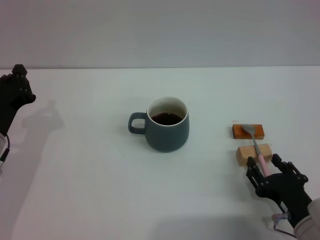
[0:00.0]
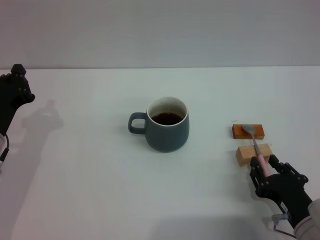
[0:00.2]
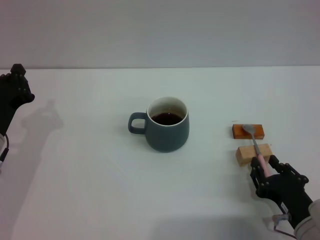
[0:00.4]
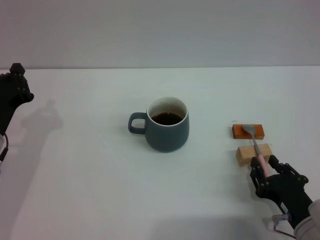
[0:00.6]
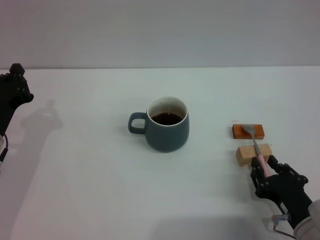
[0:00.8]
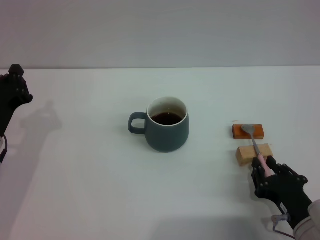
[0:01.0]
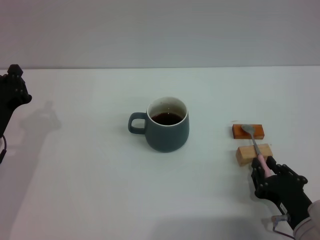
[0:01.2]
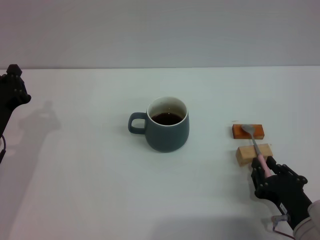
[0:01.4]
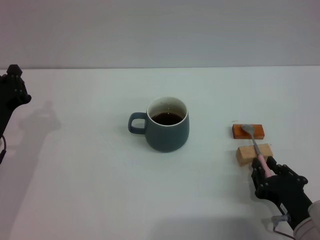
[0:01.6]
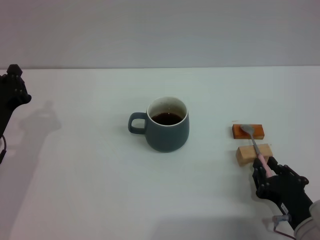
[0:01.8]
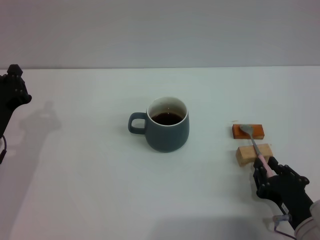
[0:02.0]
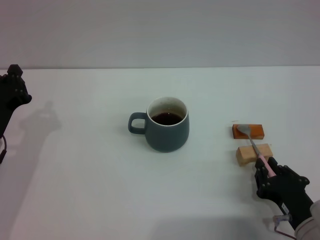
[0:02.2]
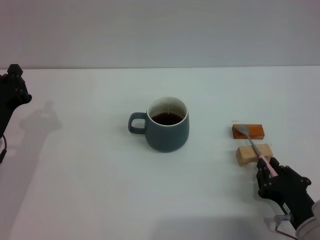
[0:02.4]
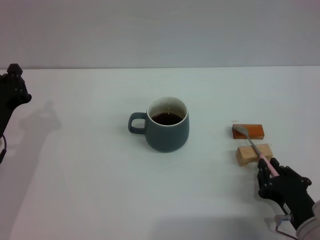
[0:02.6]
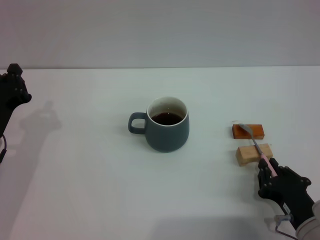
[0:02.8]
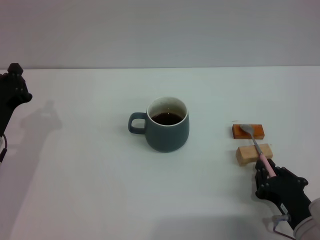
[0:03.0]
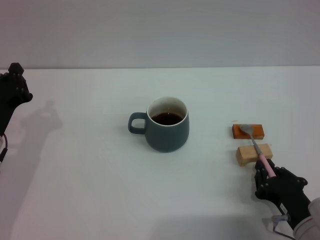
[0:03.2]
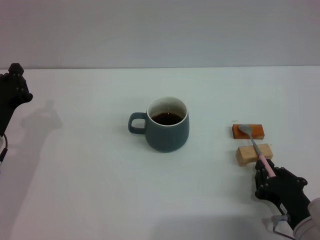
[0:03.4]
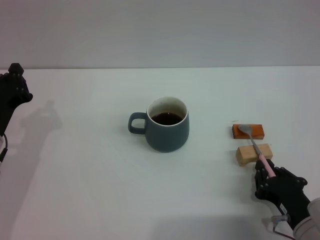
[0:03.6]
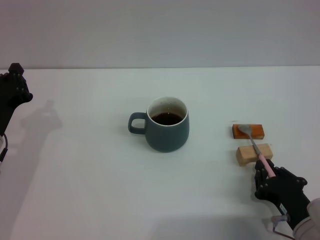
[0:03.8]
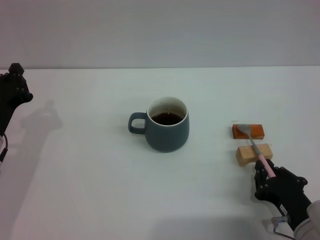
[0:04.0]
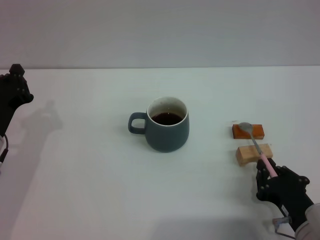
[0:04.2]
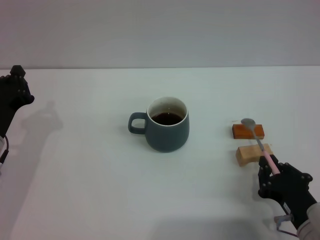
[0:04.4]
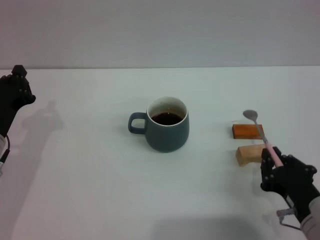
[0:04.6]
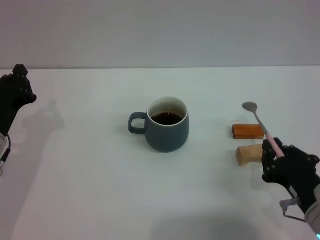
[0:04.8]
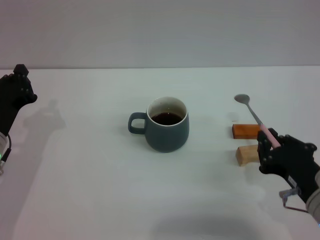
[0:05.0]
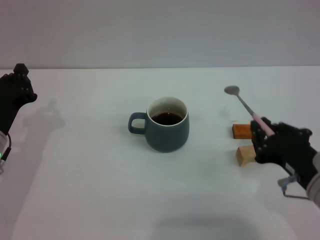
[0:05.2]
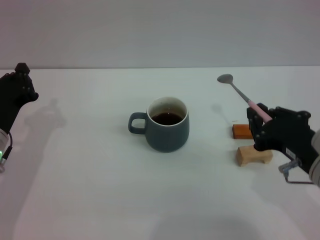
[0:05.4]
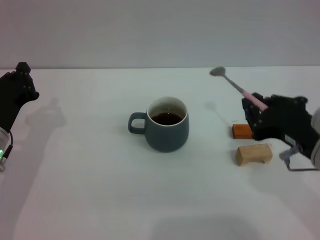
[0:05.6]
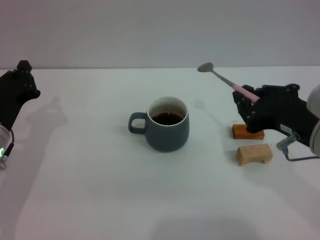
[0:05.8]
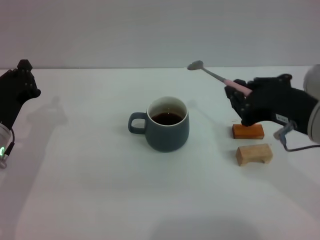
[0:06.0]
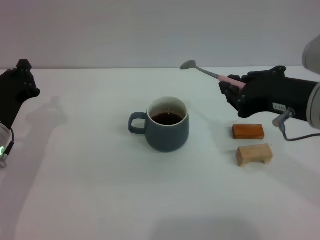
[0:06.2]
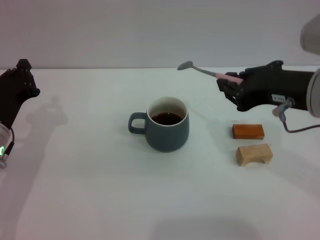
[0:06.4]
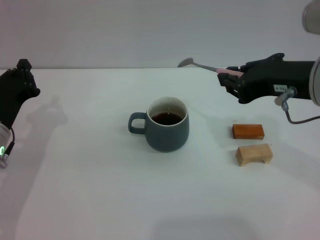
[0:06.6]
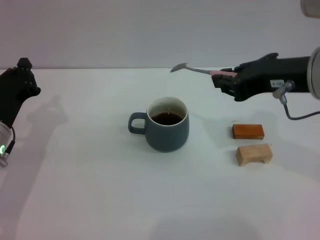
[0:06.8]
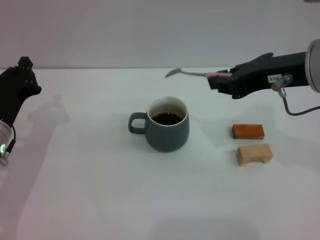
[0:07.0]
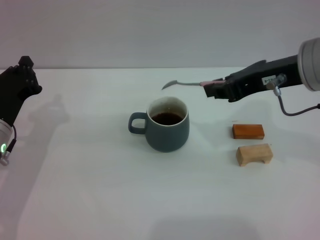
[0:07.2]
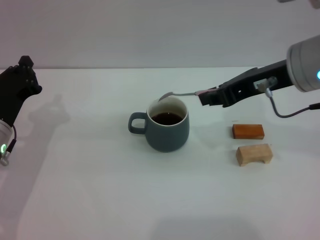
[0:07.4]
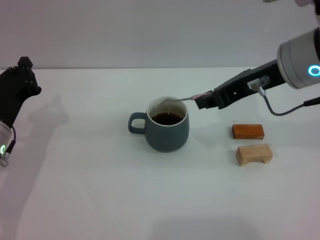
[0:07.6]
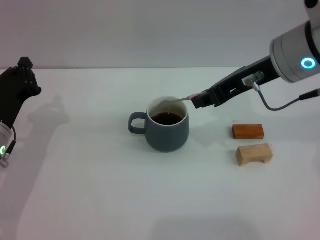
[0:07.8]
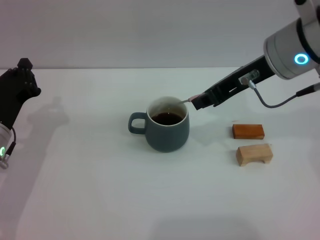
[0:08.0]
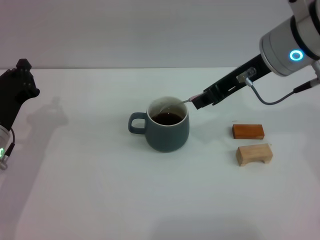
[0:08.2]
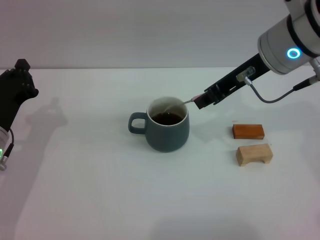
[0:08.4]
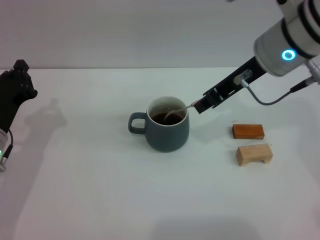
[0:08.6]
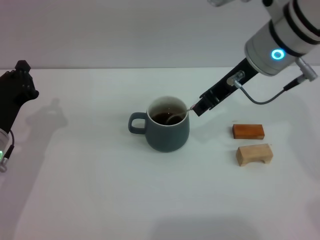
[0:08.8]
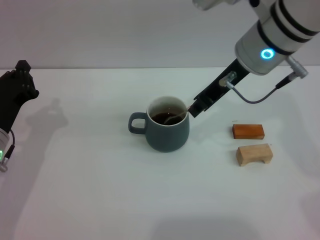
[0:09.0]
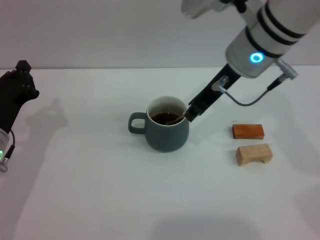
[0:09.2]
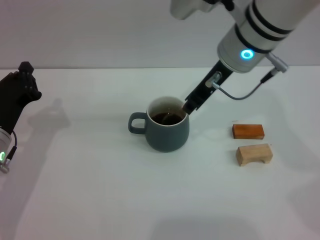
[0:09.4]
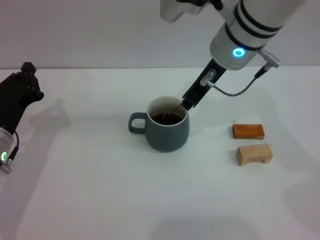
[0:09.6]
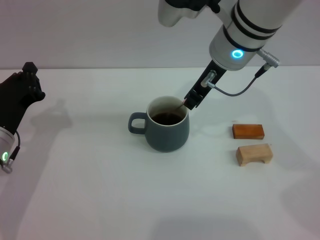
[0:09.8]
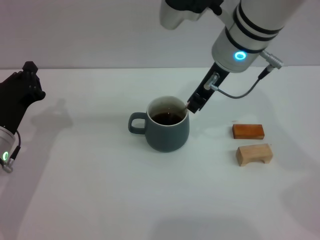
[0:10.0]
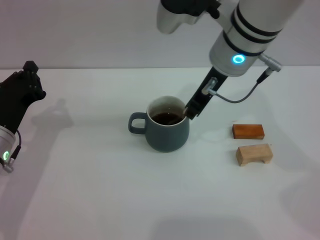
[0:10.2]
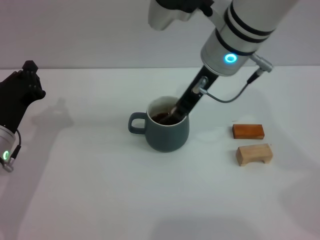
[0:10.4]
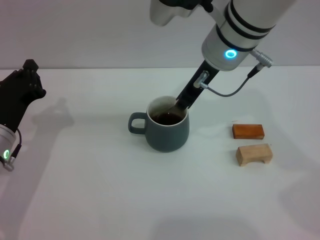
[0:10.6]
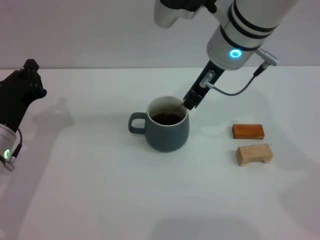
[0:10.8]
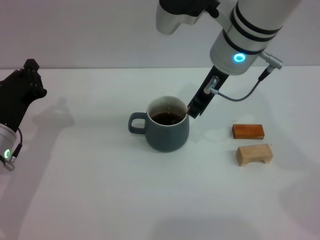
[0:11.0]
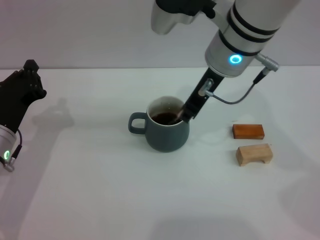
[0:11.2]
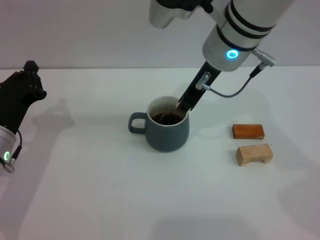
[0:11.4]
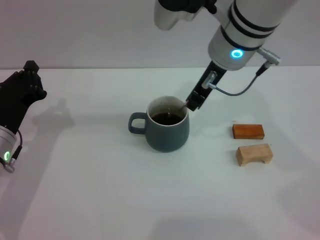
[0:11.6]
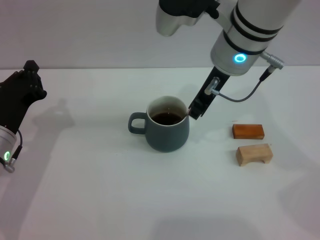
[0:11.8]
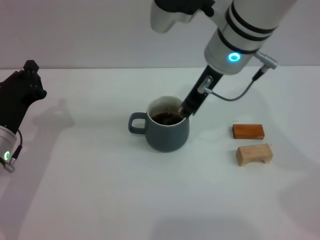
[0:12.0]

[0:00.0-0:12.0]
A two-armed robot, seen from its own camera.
Task of the whole recording: Move the grey cup to the center, lift the pink spoon, stir it three times in the cup, and put the spoon into the cup.
Step, 0:00.0 to 0:05.4: Pick up the spoon with the right gripper.
0:00.0 to 0:01.6: The right gripper closes.
0:01.6 to 0:03.0: The two grippers keep their place.
0:03.0 to 0:04.4: The grippers stay close to where they were, moving slightly.
0:04.4 to 0:06.0: The right gripper heads upward, covering about 20 cm.
0:06.0 to 0:07.6: The right gripper heads forward, covering about 10 cm.
0:07.6 to 0:09.0: The right gripper ends up some 5 cm from where it was.
0:09.0 to 0:12.0: There are only small adjustments of the grippers.

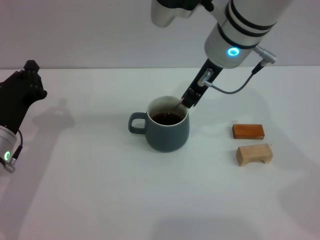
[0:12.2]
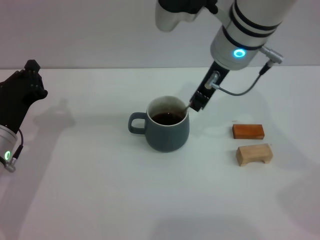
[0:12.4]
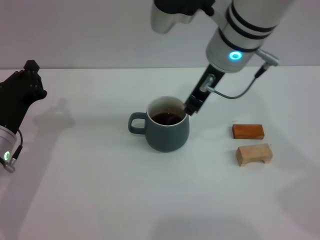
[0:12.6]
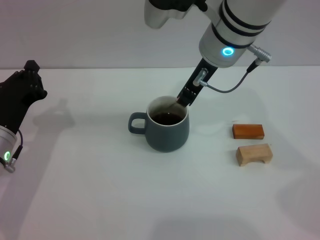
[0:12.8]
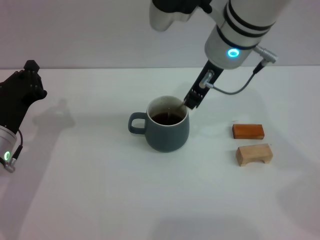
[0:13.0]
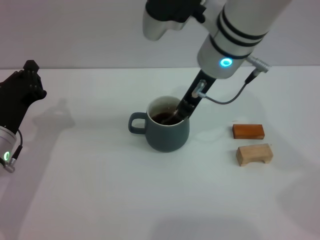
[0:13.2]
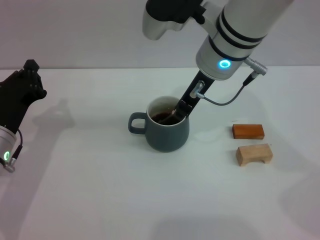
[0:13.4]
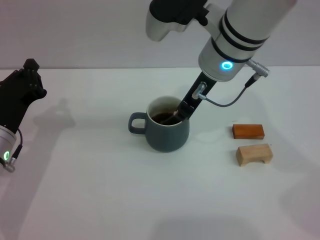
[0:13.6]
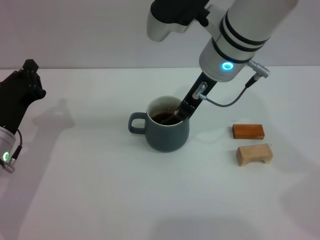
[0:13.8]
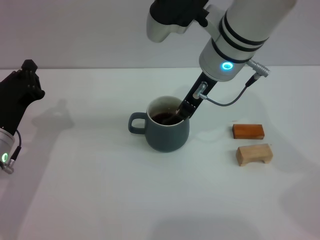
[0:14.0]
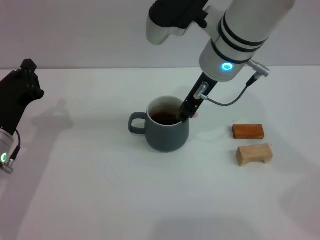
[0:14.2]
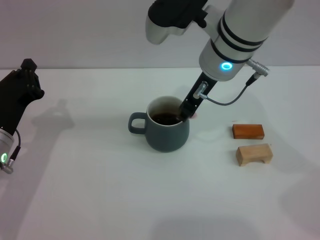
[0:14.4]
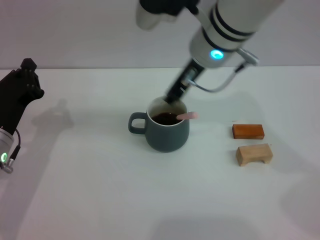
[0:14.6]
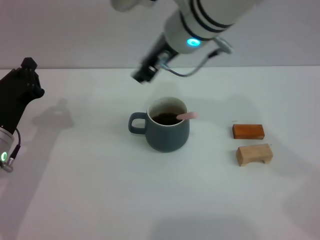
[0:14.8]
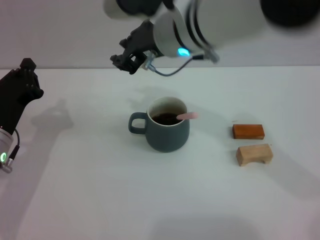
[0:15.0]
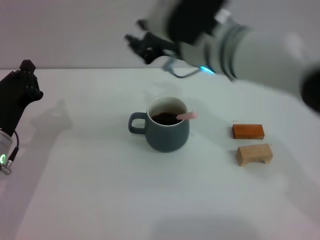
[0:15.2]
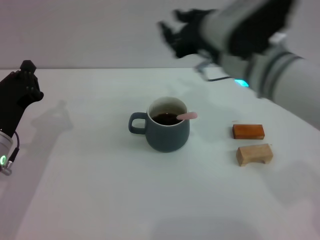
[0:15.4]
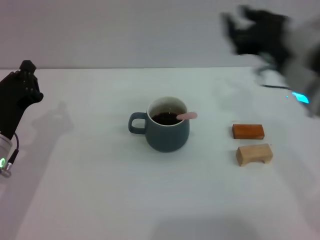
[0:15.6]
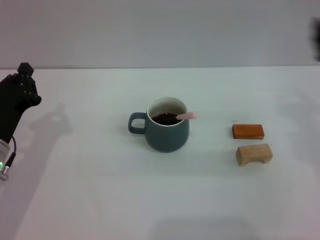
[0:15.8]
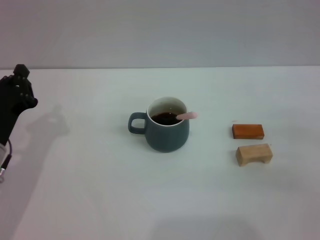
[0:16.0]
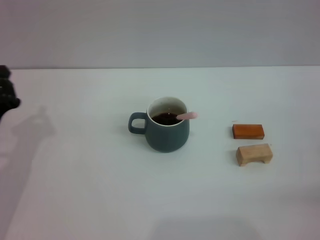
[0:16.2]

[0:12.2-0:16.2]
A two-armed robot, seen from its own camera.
Task of the whole recording: Move the grey cup to the center, lift the pink spoon, stir it three times in the cup, and put the spoon into the cup.
Step, 0:12.2 to 0:15.2: Stir the coffee in the cup with the right gripper.
0:12.2 to 0:13.6: There are only small adjustments of the grippers.
0:13.6 to 0:14.8: The right gripper ends up roughly 5 cm from where it was, and opens up.
0:14.8 to 0:16.2: The right gripper moves to the right, backward and downward, some 40 cm.

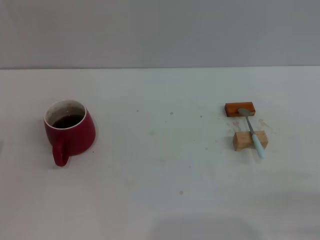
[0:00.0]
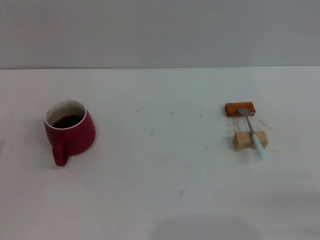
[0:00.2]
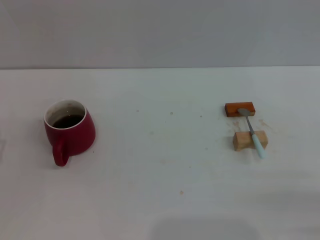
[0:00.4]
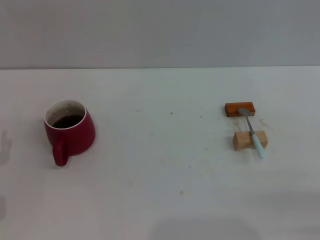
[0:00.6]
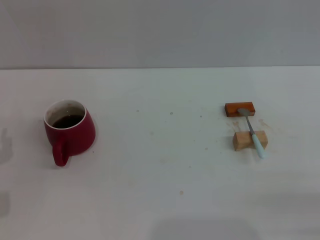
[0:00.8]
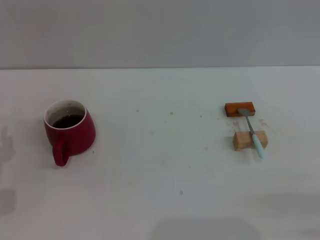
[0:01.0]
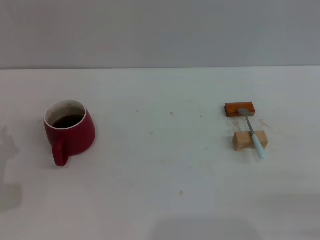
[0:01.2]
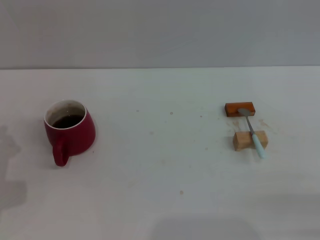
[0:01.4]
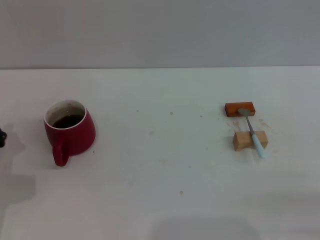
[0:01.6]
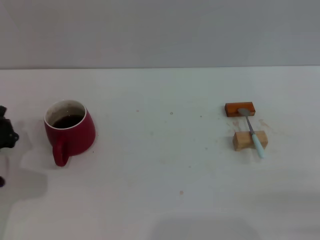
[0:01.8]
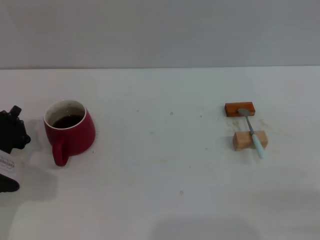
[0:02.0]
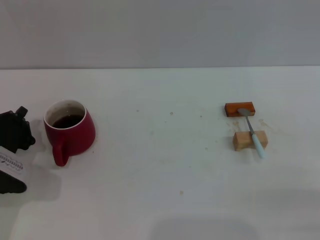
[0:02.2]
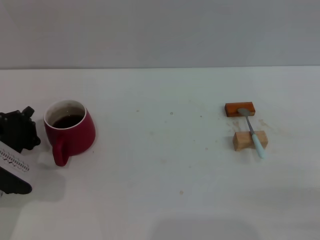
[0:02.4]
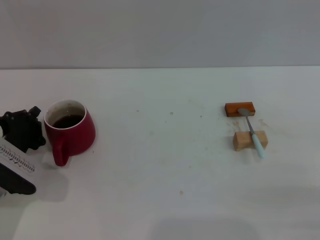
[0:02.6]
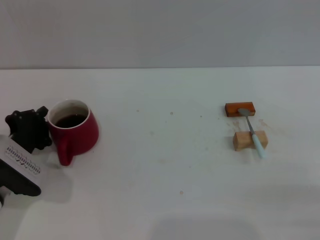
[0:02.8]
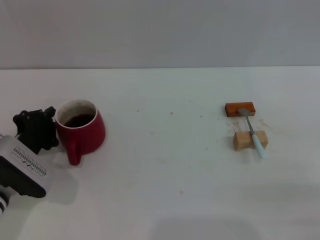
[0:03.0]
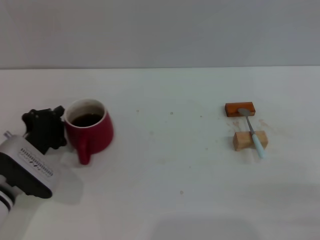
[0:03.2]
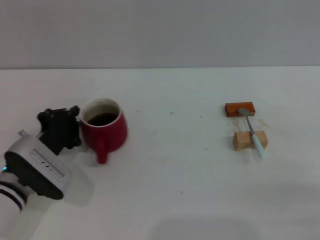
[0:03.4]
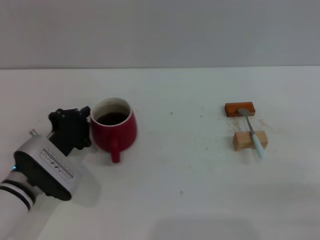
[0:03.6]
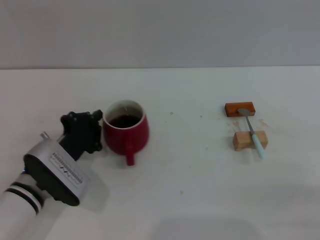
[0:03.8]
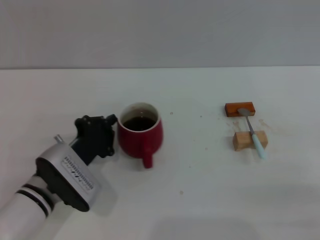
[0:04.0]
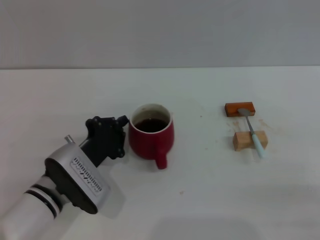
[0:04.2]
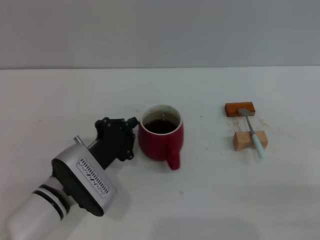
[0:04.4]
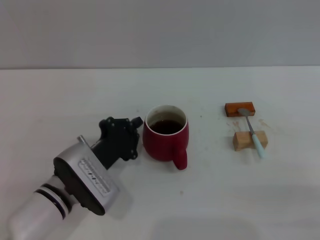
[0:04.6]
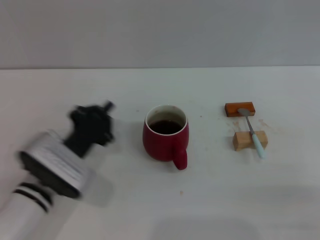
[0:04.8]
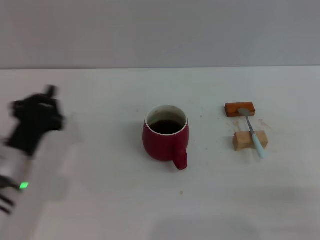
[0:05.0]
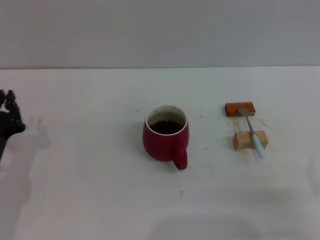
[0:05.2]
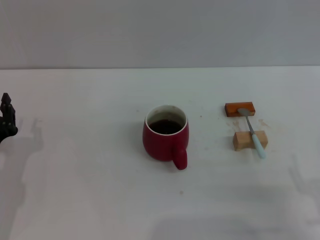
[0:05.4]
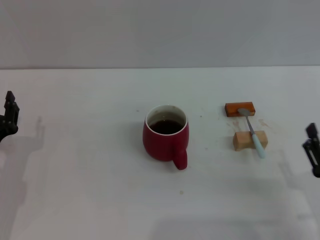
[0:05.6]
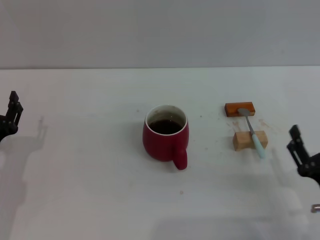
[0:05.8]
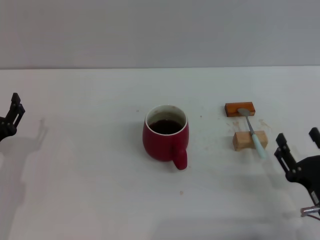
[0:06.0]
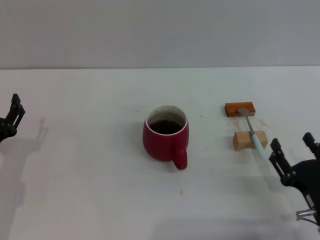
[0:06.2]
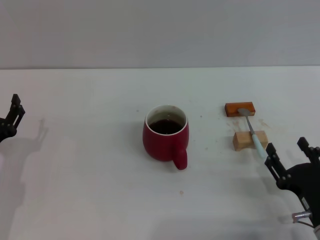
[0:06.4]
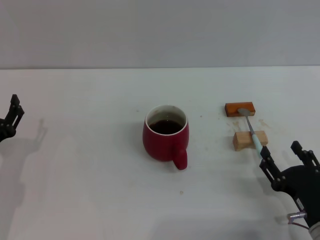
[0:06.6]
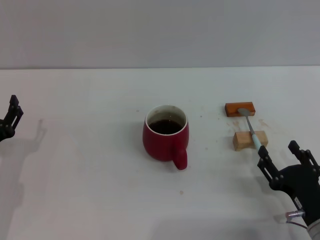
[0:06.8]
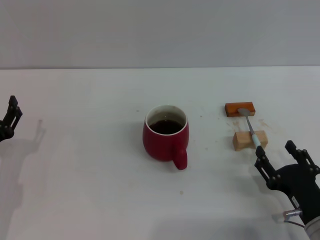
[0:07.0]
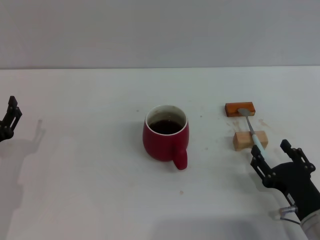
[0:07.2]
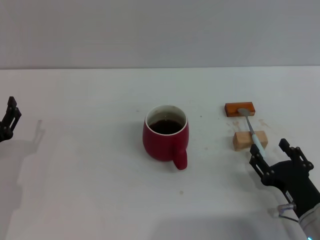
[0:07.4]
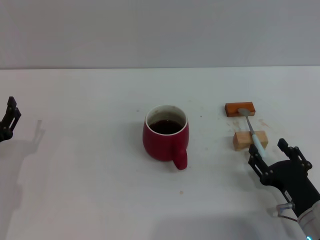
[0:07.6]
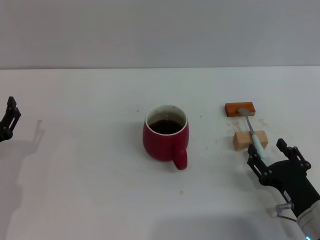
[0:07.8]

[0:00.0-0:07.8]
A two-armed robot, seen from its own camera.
Task of the whole recording: Move the red cup to the center, lift the blue spoon, stir it three times in the cup, and put the spoon into the cup.
Step, 0:00.0 to 0:04.8: Move the cup with coffee to the center of view with the left gripper.
0:01.6 to 0:03.2: The left gripper shifts some 5 cm to the right.
0:03.2 to 0:04.6: The left gripper travels to the right by roughly 10 cm.
0:04.6 to 0:06.2: The left gripper shifts approximately 15 cm to the left, and opens; the right gripper heads to the left, covering roughly 5 cm.
0:06.2 to 0:07.8: There are only small adjustments of the grippers.
